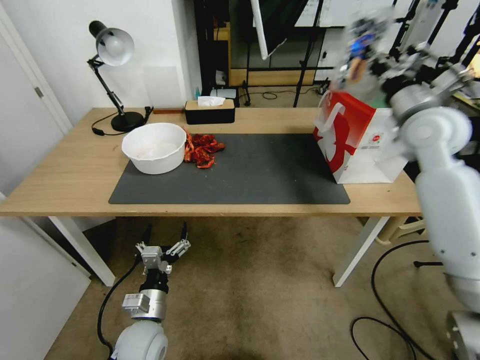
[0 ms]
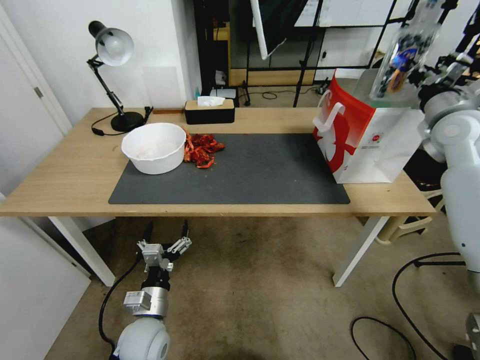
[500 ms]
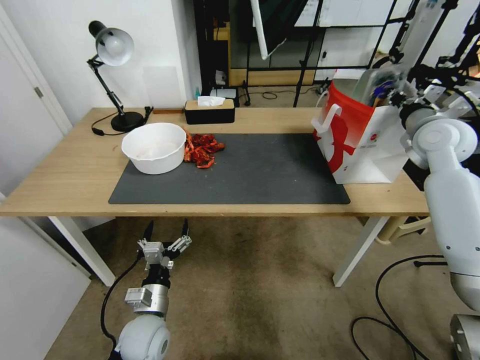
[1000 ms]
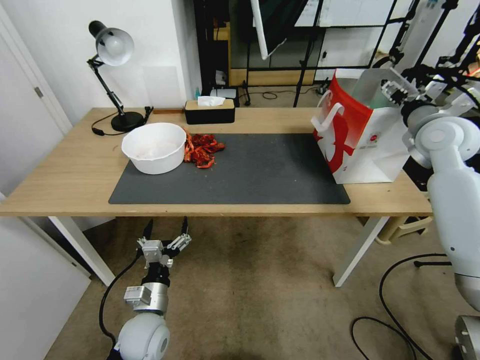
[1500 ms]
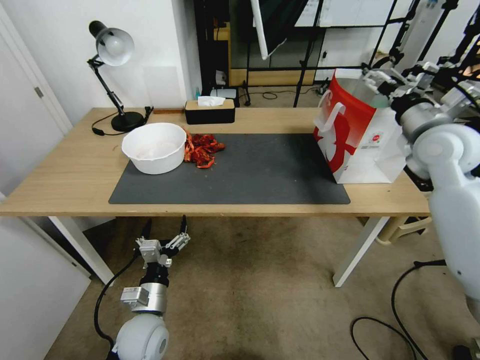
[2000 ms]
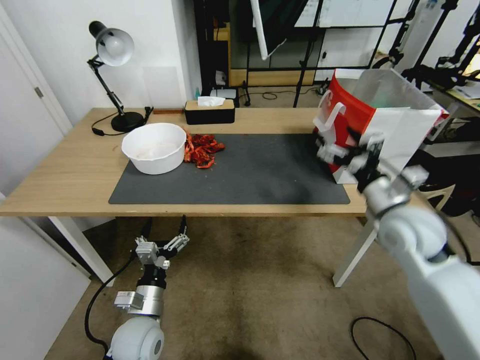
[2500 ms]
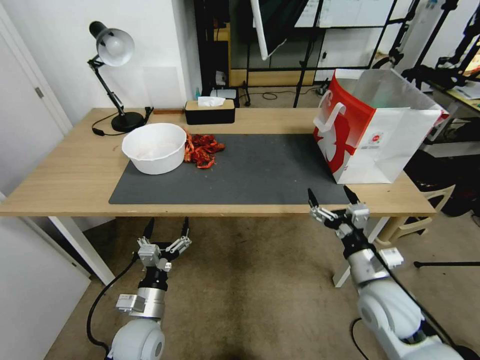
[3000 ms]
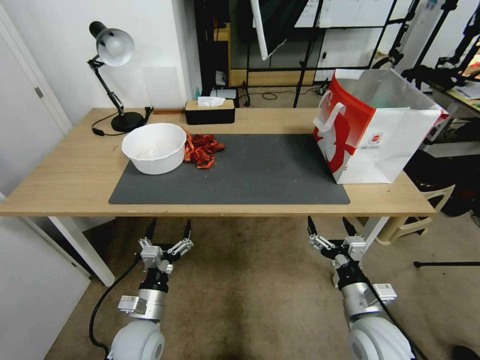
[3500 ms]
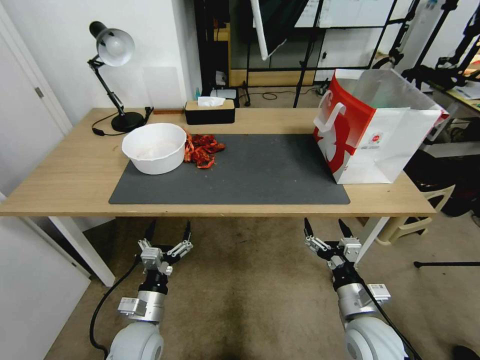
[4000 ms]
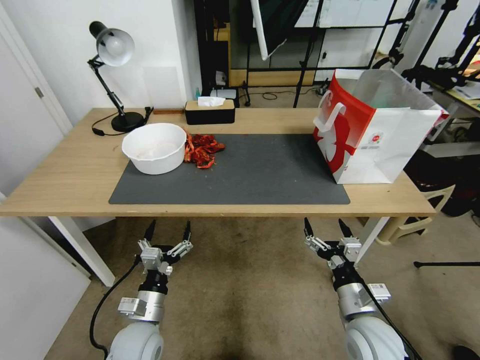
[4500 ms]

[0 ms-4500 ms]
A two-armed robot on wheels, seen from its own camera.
Task of the whole recording: Close the takeout container lid, then place the container into the takeout bag.
0 ms to 2000 ms: The right gripper opens its fingers.
2000 ms to 4500 ms: The right gripper shifts about 35 cm downward and backward.
